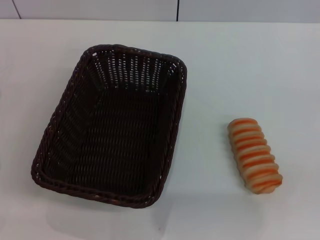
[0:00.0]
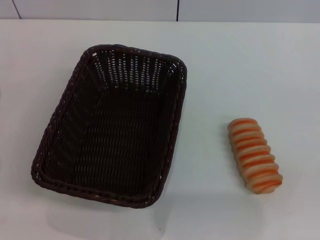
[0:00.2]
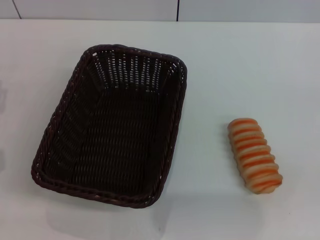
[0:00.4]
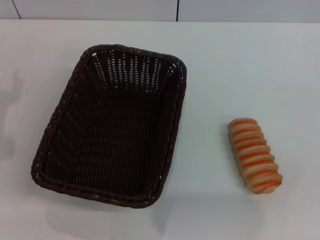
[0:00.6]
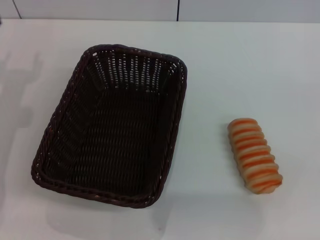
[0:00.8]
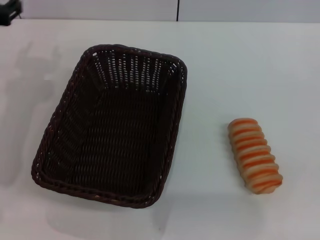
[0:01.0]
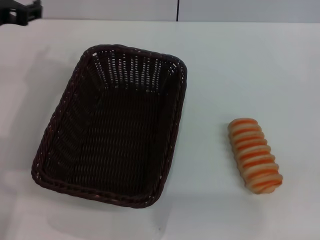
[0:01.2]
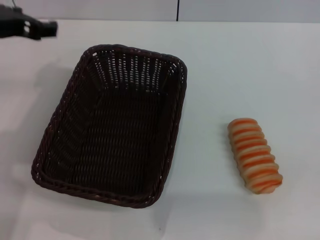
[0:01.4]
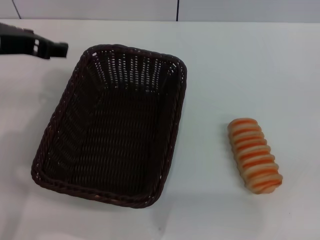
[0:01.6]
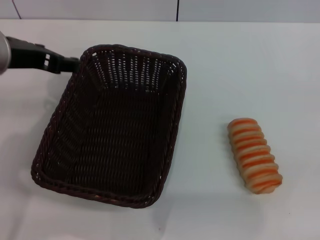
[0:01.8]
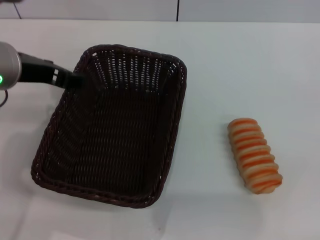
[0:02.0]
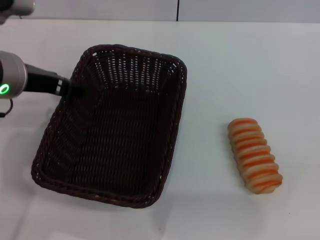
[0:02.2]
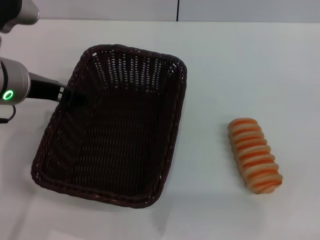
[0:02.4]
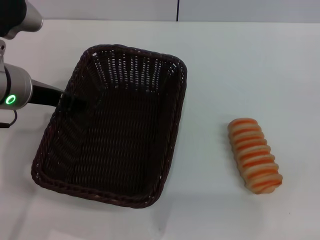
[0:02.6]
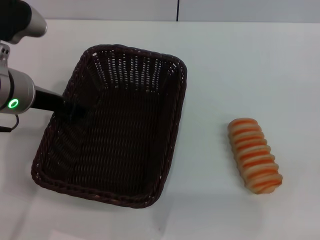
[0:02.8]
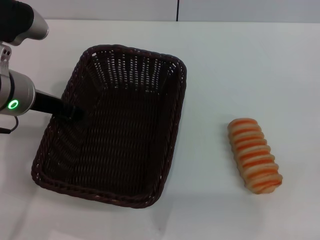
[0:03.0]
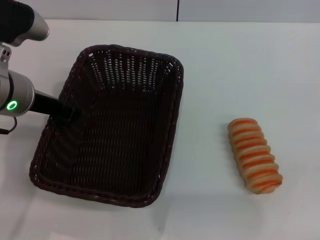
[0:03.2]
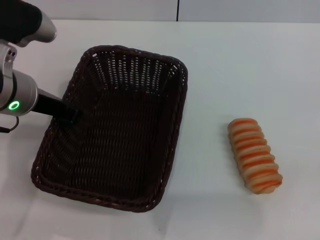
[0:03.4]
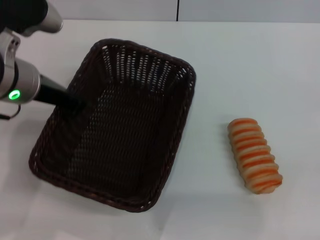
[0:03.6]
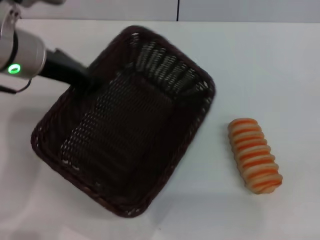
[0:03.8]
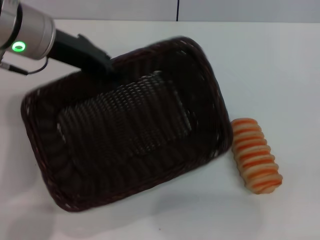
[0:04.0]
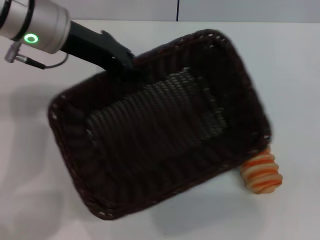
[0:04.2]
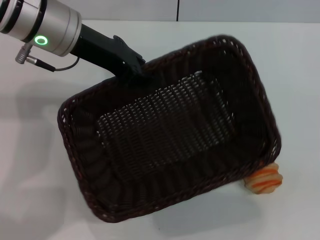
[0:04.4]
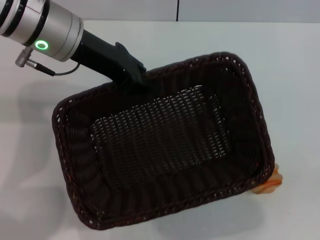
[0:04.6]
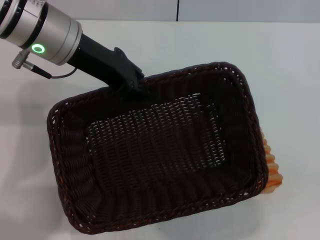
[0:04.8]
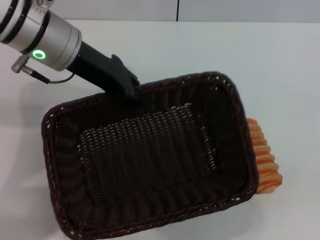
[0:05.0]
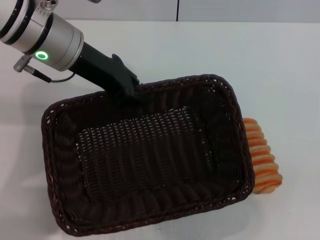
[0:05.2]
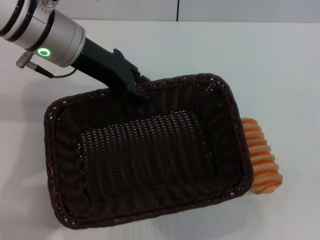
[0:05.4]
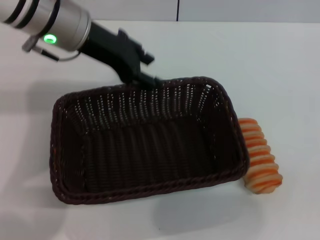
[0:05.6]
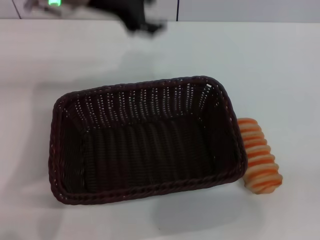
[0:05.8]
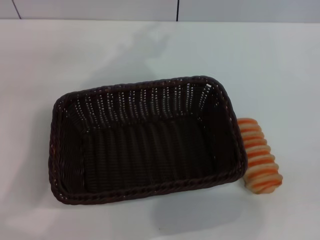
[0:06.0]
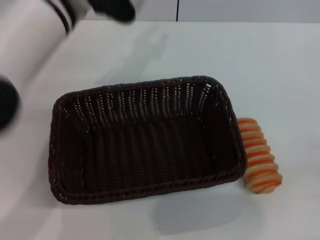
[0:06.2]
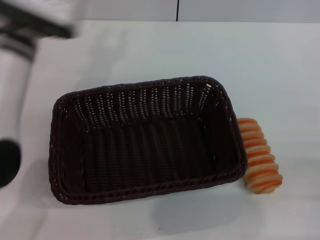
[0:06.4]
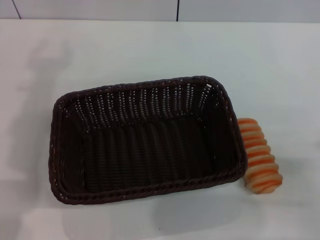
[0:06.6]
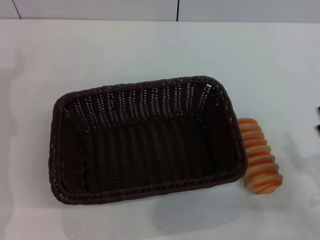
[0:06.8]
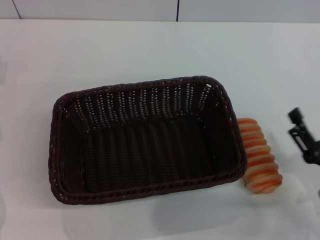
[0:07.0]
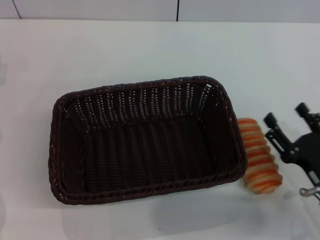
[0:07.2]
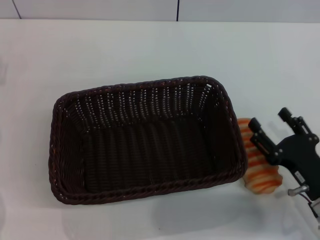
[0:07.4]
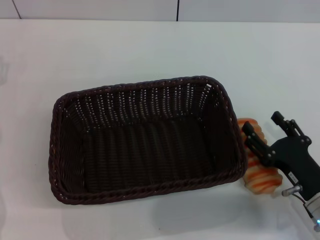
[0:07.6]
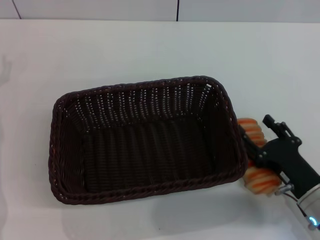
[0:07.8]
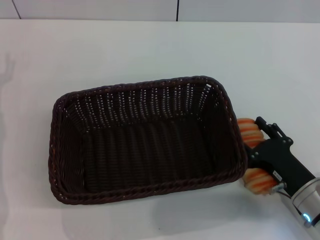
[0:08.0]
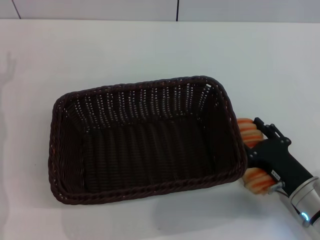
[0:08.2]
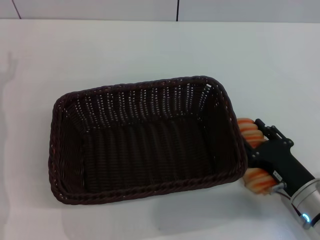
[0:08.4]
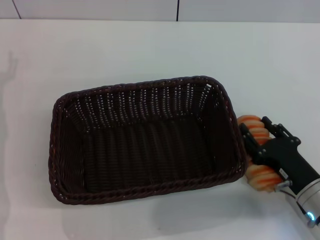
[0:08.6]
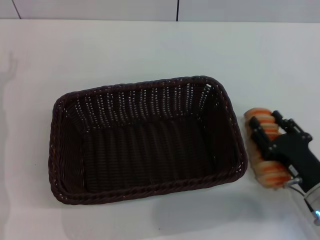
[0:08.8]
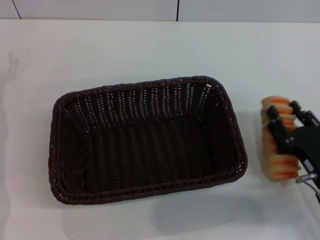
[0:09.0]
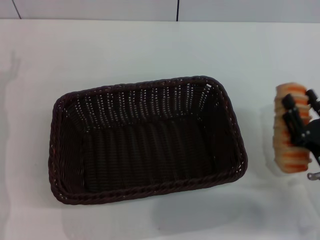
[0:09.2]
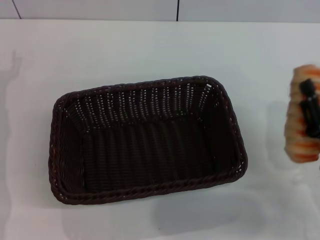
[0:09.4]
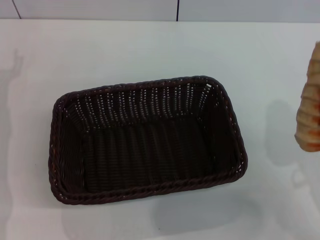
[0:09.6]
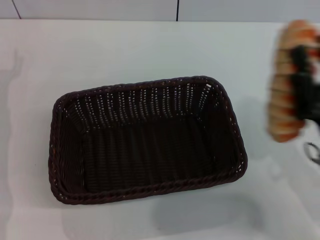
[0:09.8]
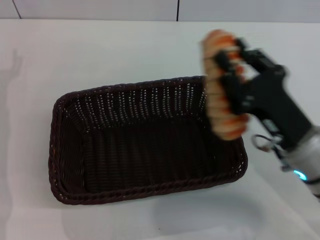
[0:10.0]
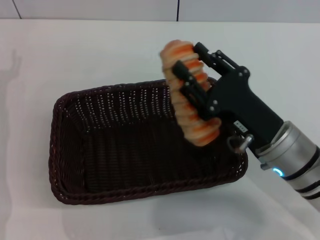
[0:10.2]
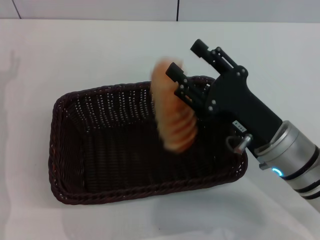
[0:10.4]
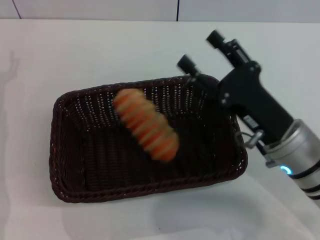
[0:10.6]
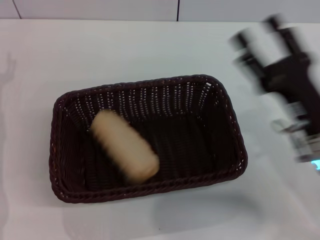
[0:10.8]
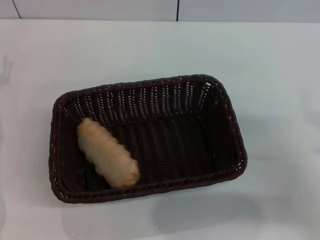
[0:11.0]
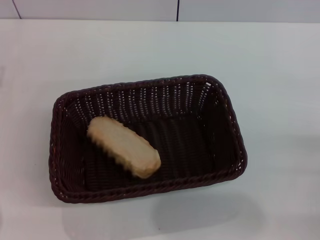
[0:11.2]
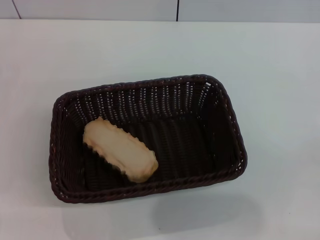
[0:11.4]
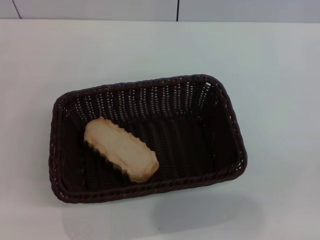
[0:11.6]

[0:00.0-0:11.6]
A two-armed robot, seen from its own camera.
Step, 0:00.0 to 0:03.6: Pick up the dark basket with the left gripper.
Step, 0:03.8 to 0:05.6: Place the dark basket in the center of view with the left gripper.
Step, 0:05.8 to 0:09.0: Pick up the long bread with the right gripper.
Step, 0:09.2 to 0:10.4: Place the long bread into the dark basket with the right gripper.
0:00.0 to 0:01.4: The left gripper travels upward, to the right and forward by some 25 cm.
0:01.4 to 0:02.8: The left gripper goes about 5 cm downward.
0:02.8 to 0:04.4: The left gripper is displaced forward and upward by about 10 cm, and closes up.
0:04.4 to 0:05.8: The left gripper opens up.
0:05.8 to 0:07.2: The left gripper moves to the left, downward and backward, some 30 cm, and opens. Meanwhile the right gripper is displaced to the left by some 10 cm.
0:07.2 to 0:08.8: The right gripper closes.
0:08.8 to 0:10.2: The right gripper goes some 10 cm upward and to the left, and closes its fingers.
0:10.2 to 0:11.6: The right gripper shifts approximately 25 cm to the right and backward, and opens up.
